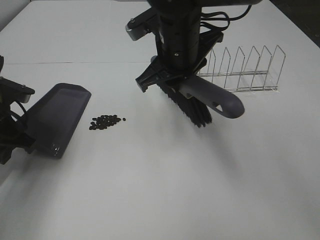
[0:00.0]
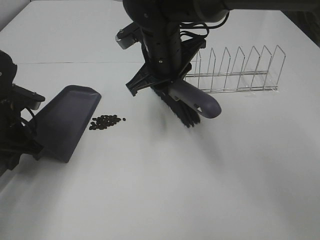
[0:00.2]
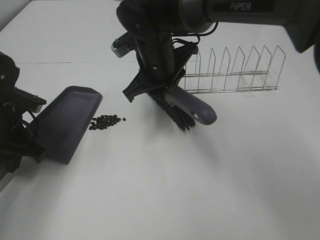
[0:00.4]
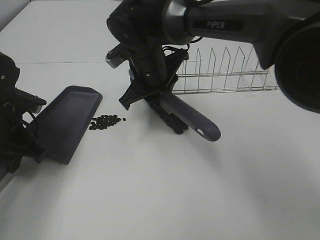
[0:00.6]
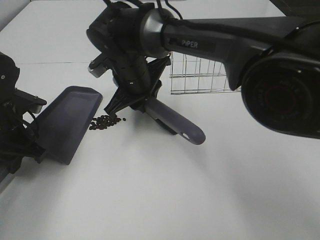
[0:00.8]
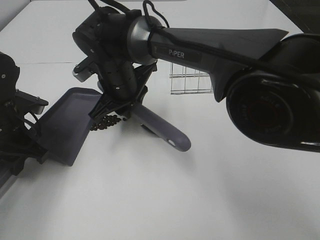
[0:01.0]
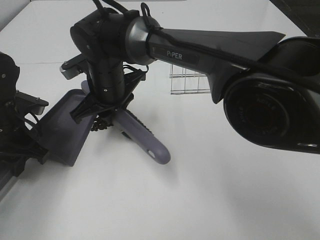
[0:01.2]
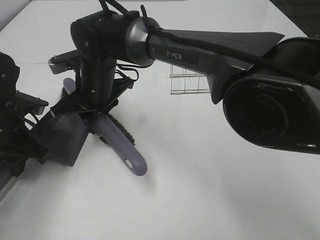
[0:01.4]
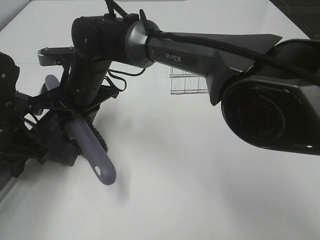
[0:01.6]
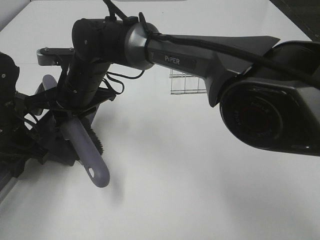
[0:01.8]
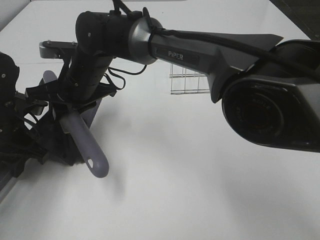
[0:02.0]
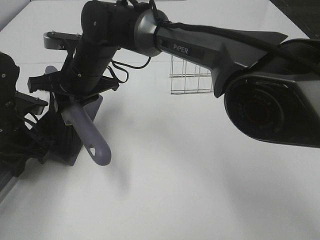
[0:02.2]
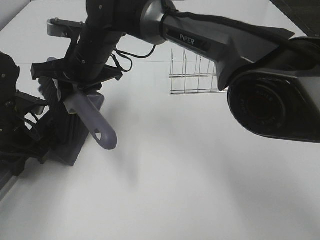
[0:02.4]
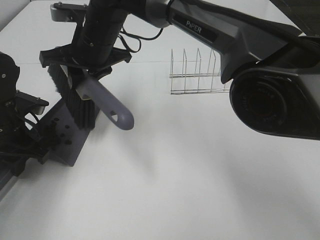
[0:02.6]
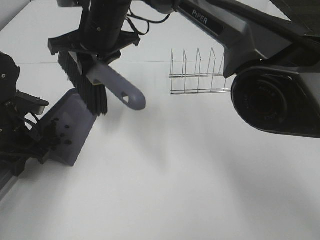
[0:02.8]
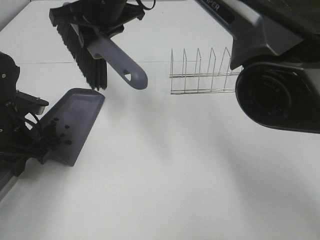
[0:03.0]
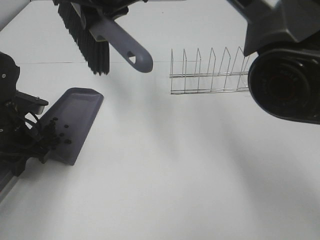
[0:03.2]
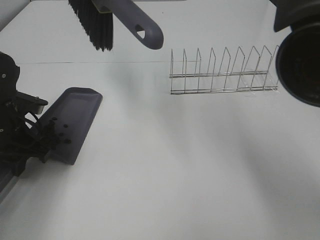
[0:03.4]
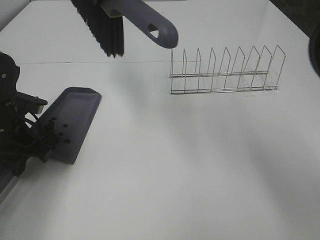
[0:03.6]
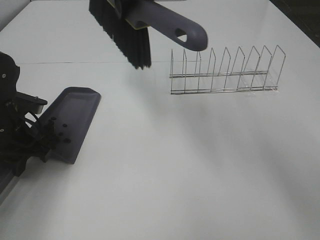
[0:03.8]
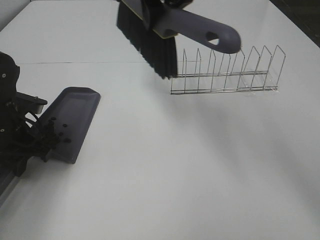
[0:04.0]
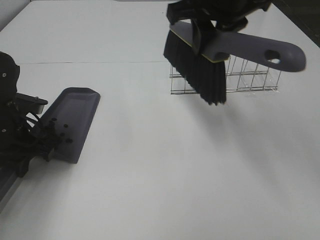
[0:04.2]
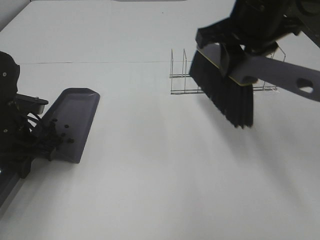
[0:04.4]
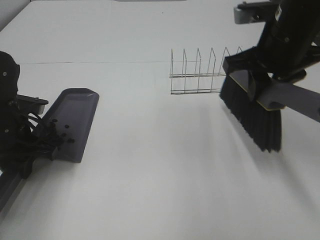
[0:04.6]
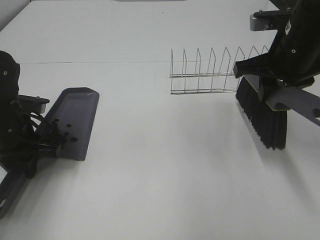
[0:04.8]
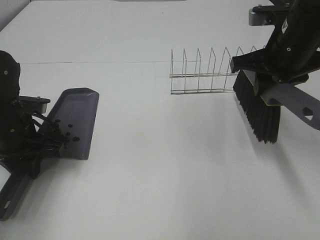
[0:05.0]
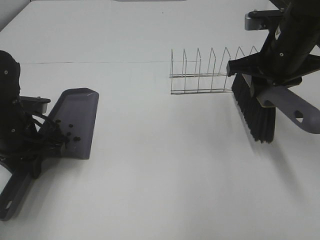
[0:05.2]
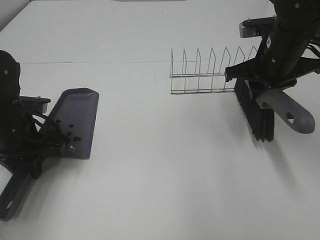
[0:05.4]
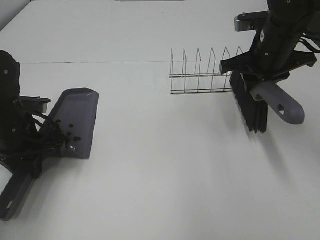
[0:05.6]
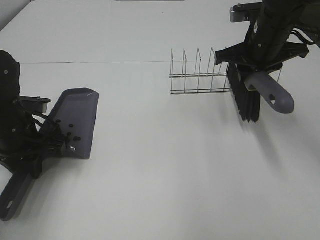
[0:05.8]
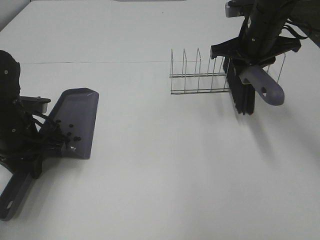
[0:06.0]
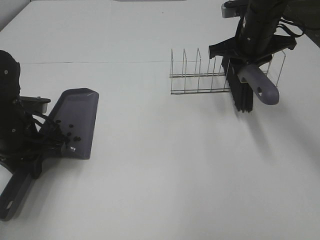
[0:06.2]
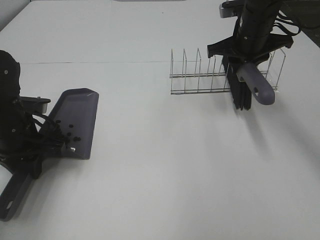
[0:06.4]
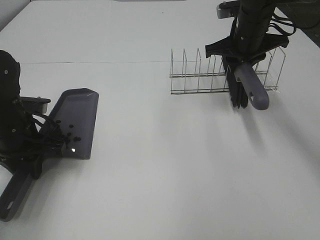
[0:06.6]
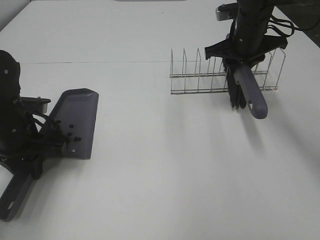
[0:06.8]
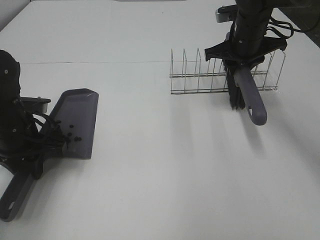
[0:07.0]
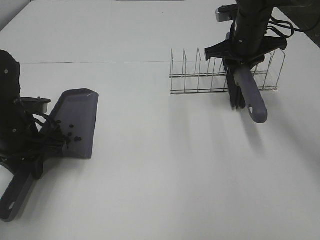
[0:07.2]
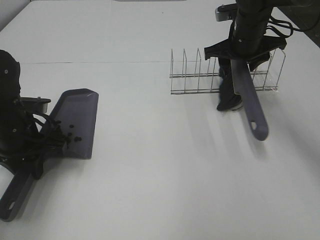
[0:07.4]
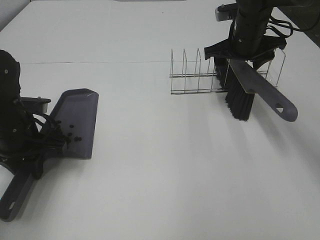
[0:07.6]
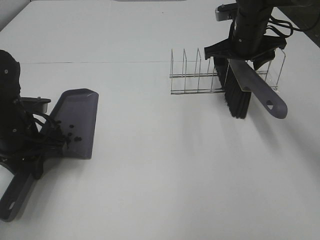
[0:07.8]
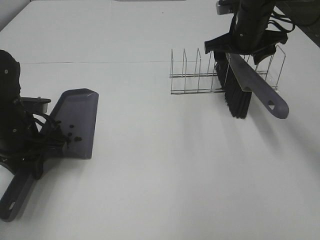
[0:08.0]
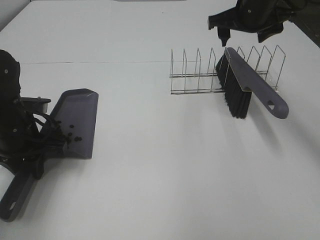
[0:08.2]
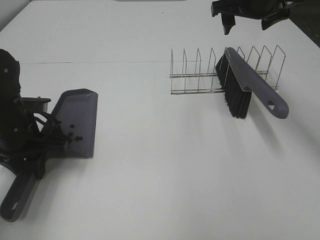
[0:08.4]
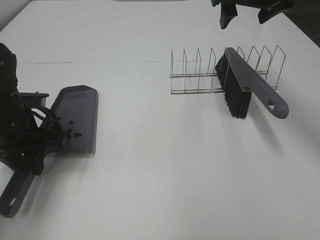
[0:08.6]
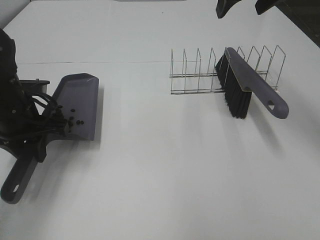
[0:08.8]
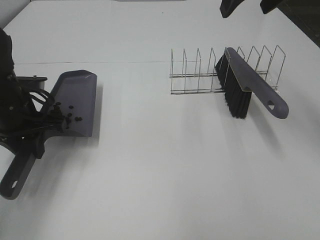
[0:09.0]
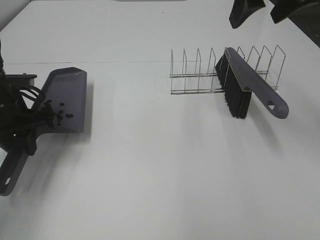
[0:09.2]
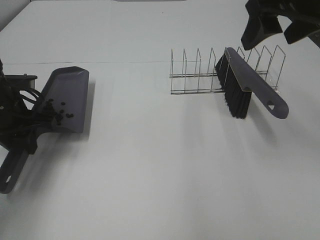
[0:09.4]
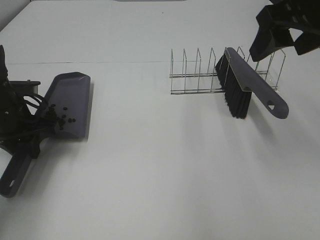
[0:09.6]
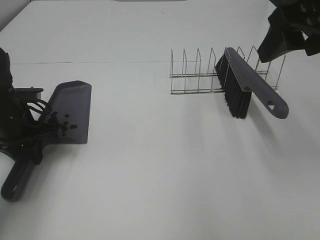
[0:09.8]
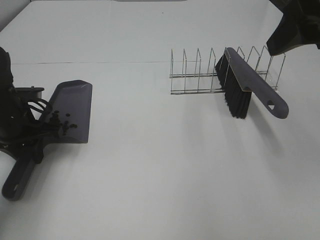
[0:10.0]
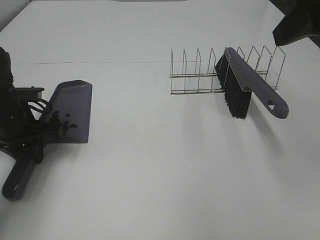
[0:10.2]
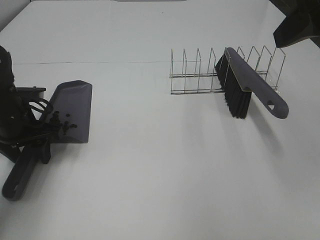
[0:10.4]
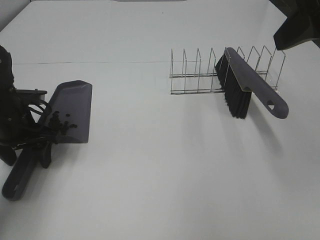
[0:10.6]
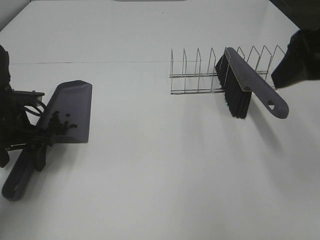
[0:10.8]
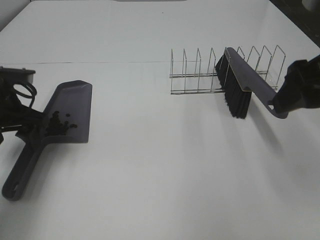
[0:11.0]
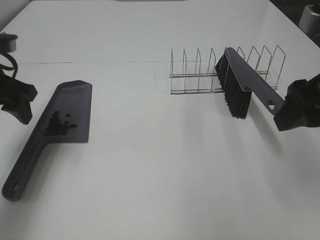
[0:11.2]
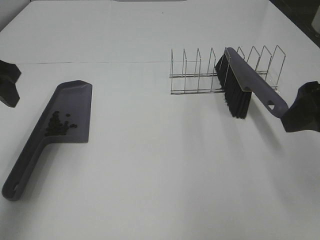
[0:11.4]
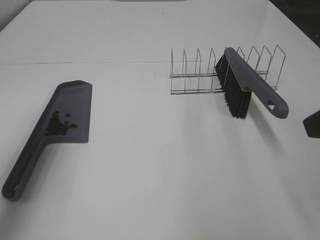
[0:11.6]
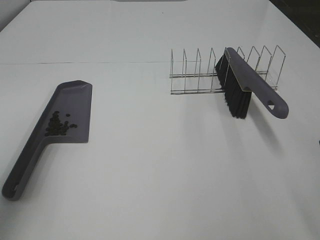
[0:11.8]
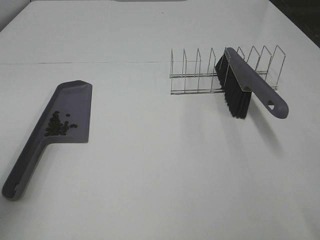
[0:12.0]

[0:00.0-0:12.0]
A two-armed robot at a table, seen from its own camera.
Task of the whole recording: Sweep Coffee Bean.
Step, 0:00.0 to 0:02.6: Right hand:sweep the coffee beans into the dustpan.
Step, 0:02.8 to 0:07.6: Right hand:place the broom on the rack.
Step, 0:07.8 to 0:10.6: Left hand:place the dustpan on the table.
0:00.0 to 0:01.6: The right gripper shifts approximately 15 cm to the left and downward.
0:01.6 to 0:03.0: The right gripper goes some 15 cm upward and to the right.
0:03.0 to 0:04.4: The right gripper is displaced to the right and backward by some 25 cm.
0:04.4 to 0:06.0: The right gripper heads forward and downward, covering about 10 cm.
0:06.0 to 0:07.6: The right gripper opens up.
0:07.6 to 0:09.0: The right gripper heads upward and backward, covering approximately 20 cm.
0:09.0 to 0:10.4: The right gripper goes some 15 cm backward, while the left gripper opens.
0:10.4 to 0:12.0: The left gripper moves upward and backward, approximately 25 cm, while the right gripper is displaced backward and downward by approximately 15 cm.

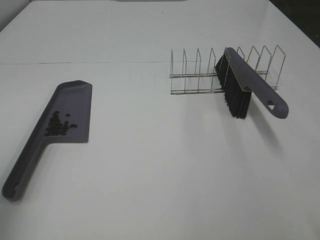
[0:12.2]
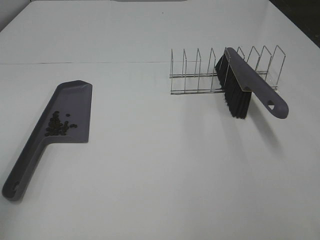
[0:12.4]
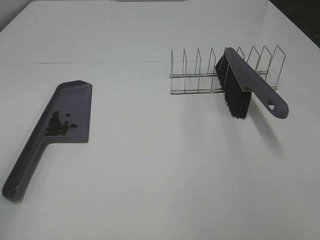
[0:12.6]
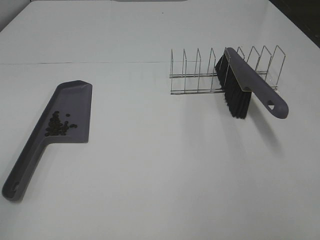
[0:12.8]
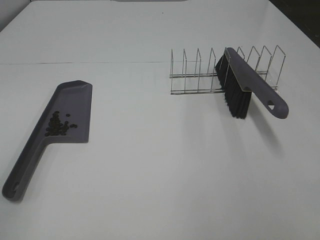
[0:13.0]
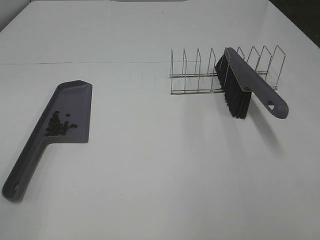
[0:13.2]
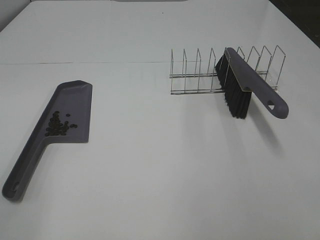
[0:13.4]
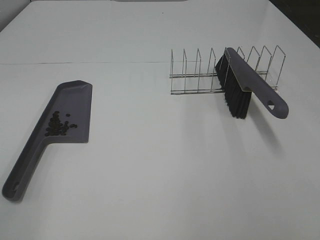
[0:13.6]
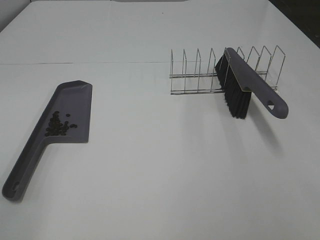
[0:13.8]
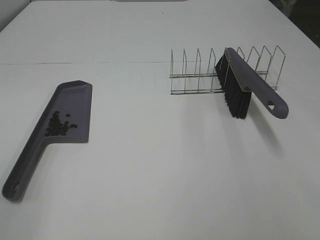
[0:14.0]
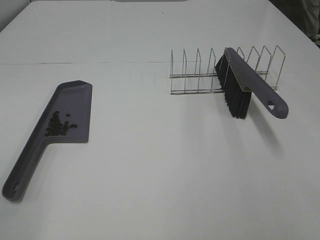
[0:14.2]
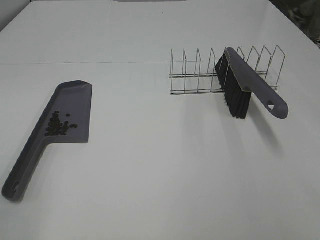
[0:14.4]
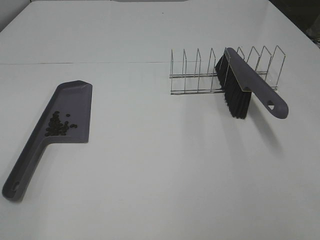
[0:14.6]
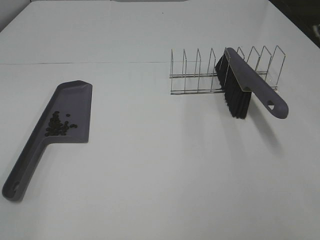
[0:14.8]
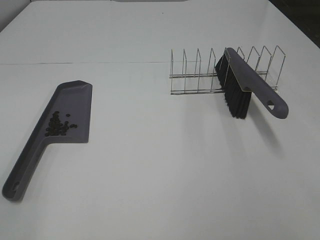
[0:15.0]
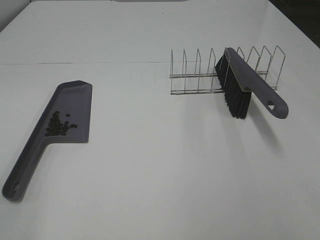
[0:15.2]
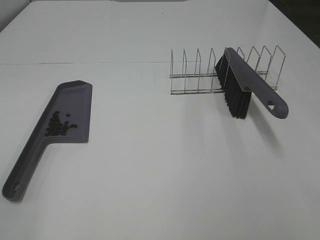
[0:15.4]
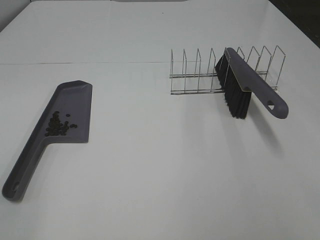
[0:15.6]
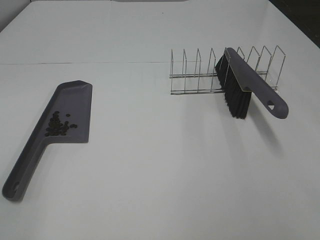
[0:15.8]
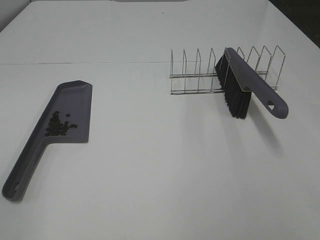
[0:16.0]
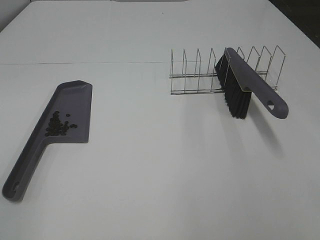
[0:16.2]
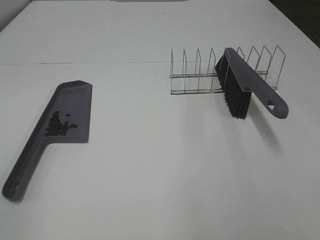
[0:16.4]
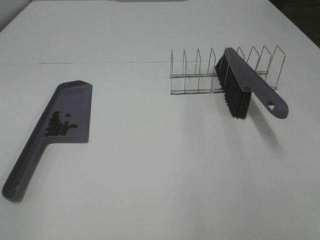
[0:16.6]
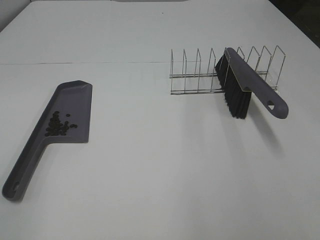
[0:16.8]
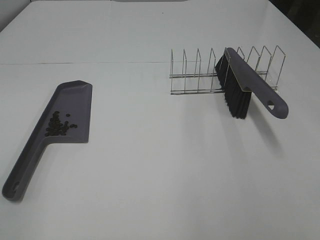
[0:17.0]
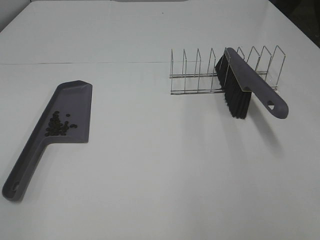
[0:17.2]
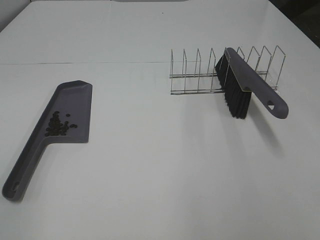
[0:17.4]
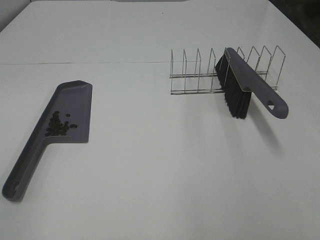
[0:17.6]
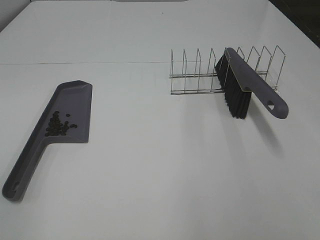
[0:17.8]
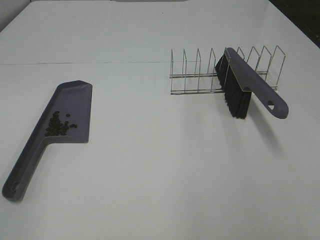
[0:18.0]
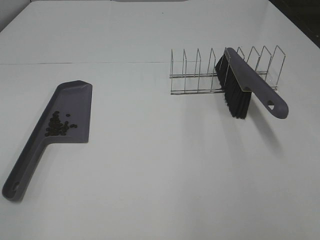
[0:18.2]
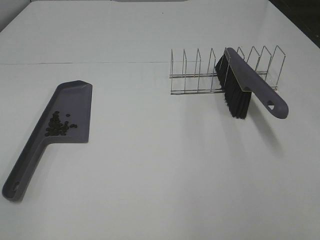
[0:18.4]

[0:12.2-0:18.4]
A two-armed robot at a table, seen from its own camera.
Task of the whole recording: Sweep Coffee Bean.
0:16.8 to 0:18.4: Both grippers stay about where they are.

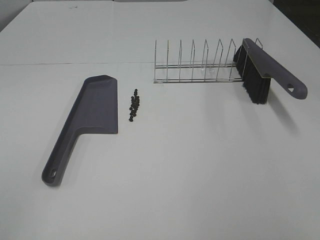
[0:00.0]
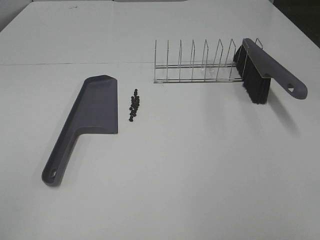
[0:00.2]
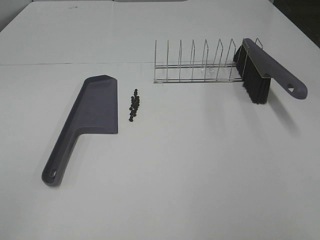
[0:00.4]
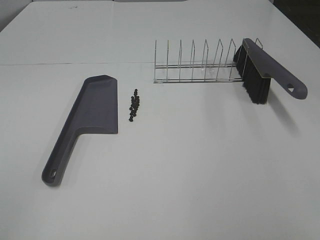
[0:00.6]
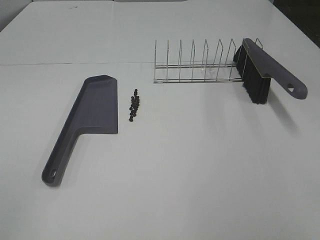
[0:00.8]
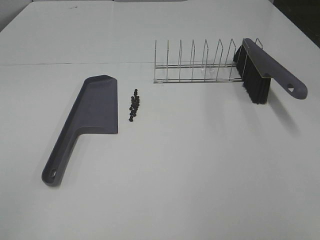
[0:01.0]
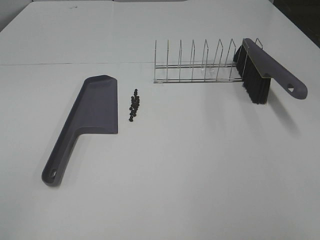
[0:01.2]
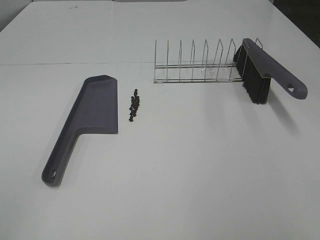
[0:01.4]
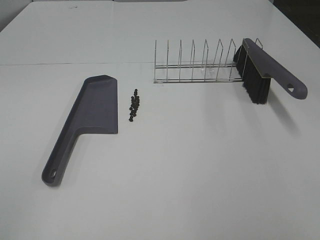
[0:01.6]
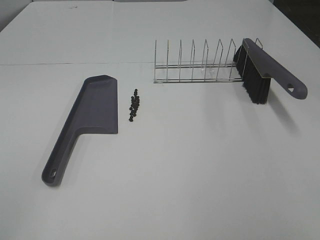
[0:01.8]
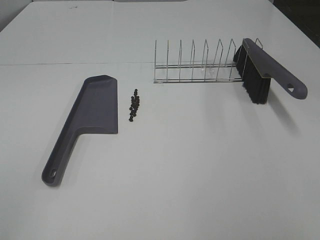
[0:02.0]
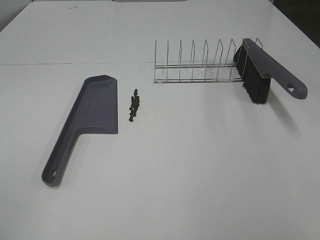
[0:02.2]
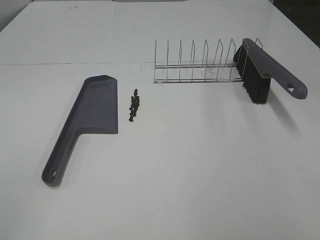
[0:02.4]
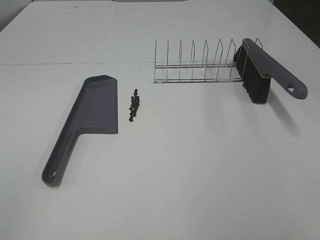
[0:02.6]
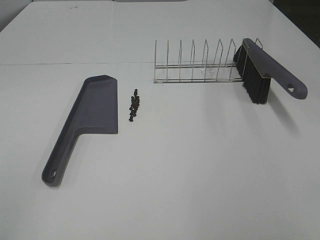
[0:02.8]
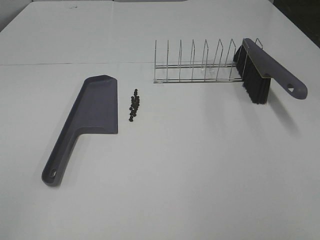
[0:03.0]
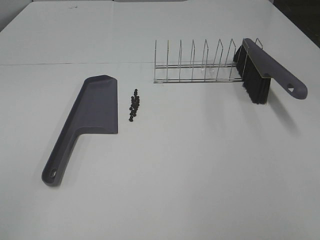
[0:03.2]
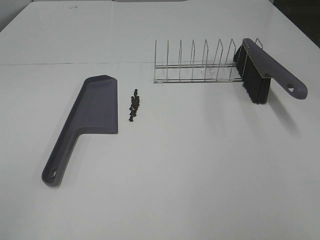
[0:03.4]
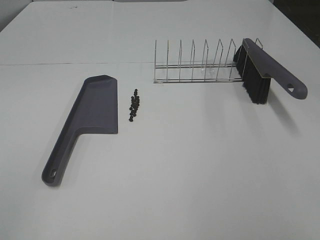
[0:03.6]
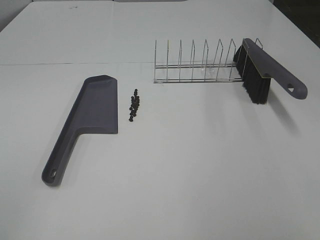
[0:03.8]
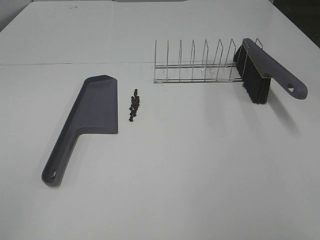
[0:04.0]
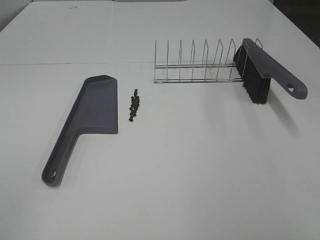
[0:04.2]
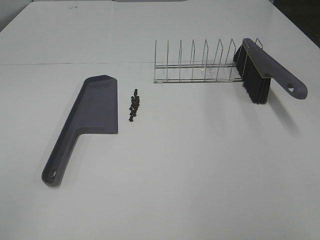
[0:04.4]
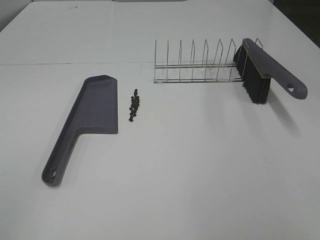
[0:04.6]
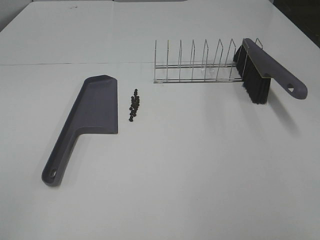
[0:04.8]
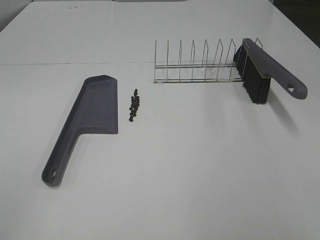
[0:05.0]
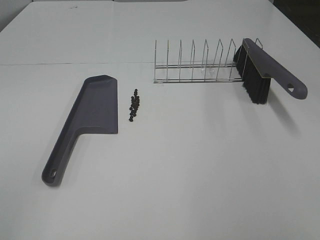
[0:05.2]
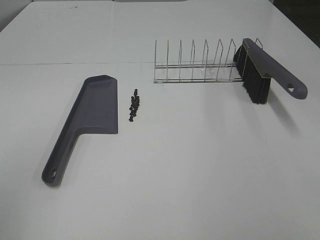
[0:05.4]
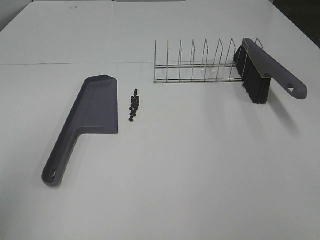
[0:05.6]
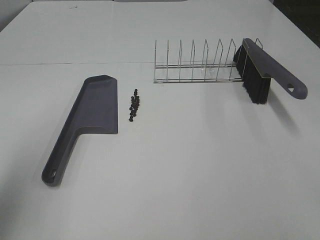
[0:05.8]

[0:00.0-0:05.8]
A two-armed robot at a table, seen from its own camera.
Task of the whole recording: Sweep Coffee Bean.
0:00.0 to 0:04.4: Both grippers stay about where they are.
0:04.4 to 0:05.8: The left gripper is displaced forward by about 15 cm.
